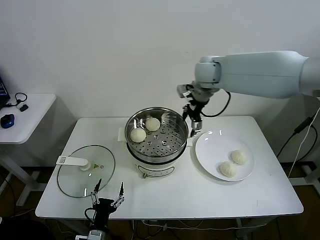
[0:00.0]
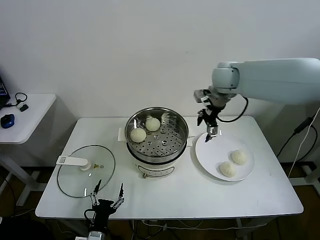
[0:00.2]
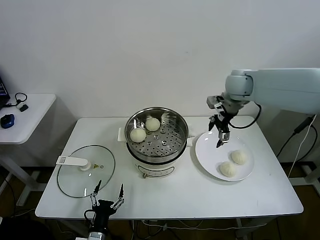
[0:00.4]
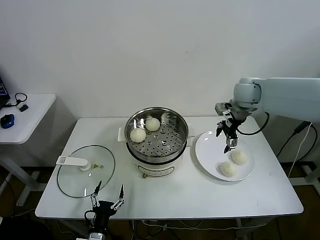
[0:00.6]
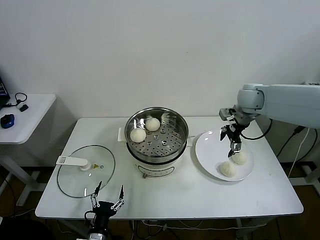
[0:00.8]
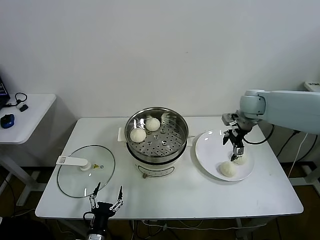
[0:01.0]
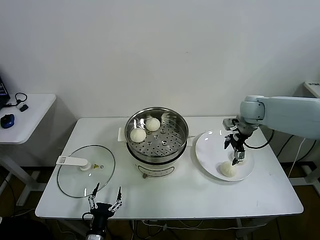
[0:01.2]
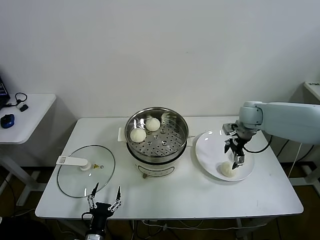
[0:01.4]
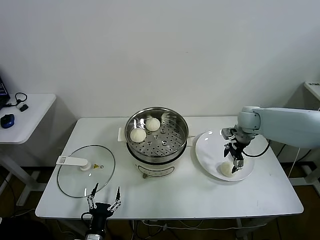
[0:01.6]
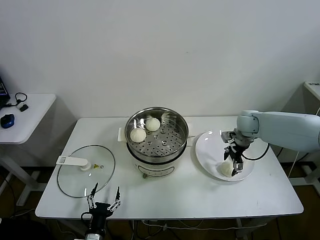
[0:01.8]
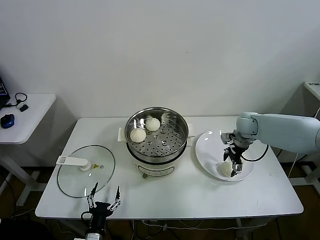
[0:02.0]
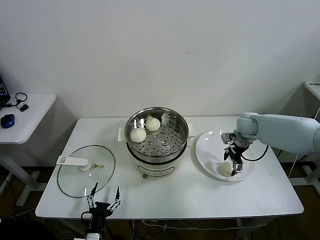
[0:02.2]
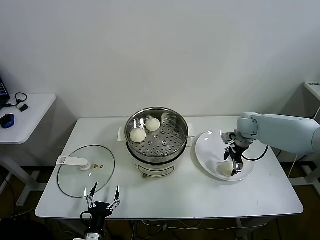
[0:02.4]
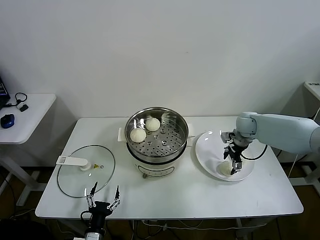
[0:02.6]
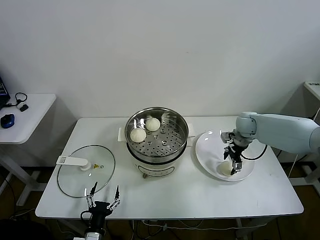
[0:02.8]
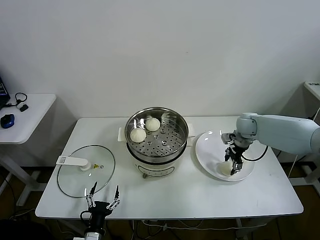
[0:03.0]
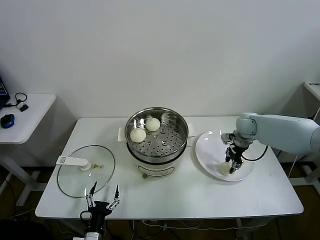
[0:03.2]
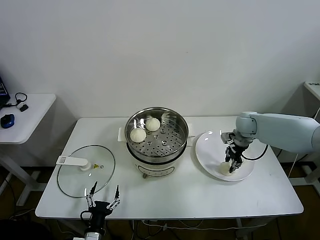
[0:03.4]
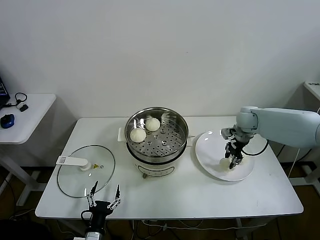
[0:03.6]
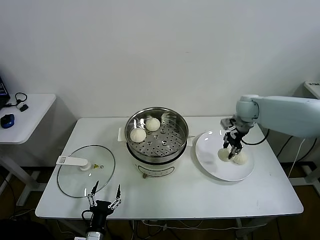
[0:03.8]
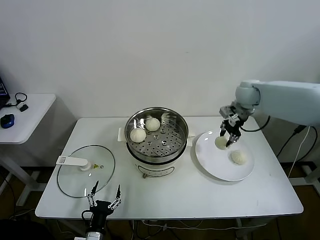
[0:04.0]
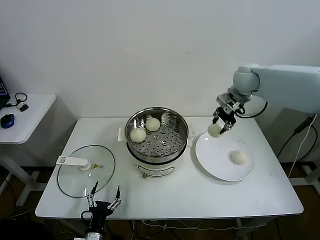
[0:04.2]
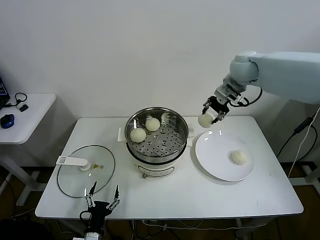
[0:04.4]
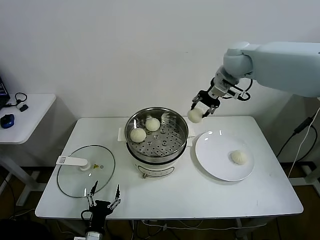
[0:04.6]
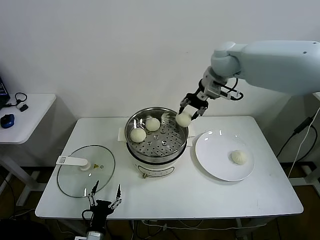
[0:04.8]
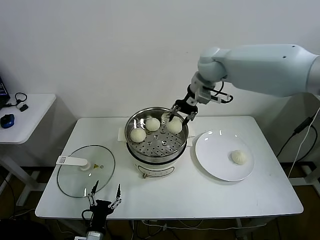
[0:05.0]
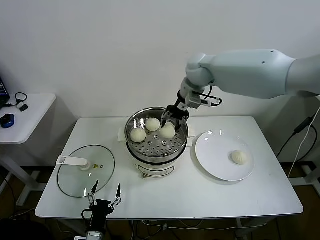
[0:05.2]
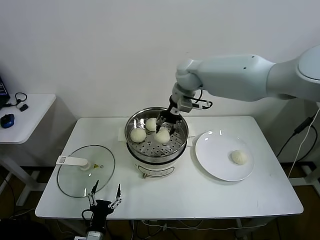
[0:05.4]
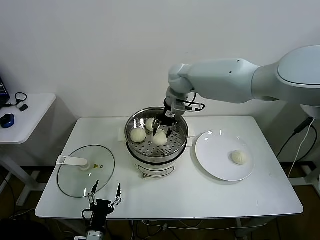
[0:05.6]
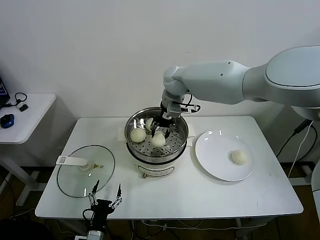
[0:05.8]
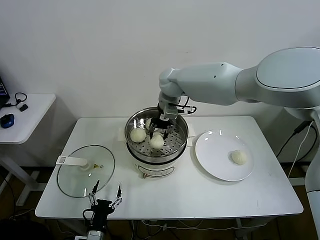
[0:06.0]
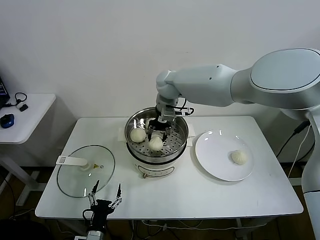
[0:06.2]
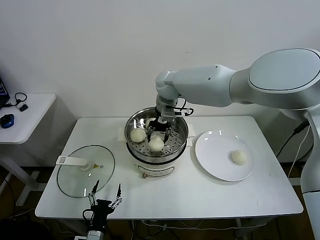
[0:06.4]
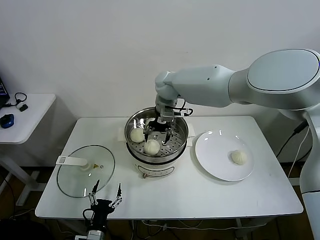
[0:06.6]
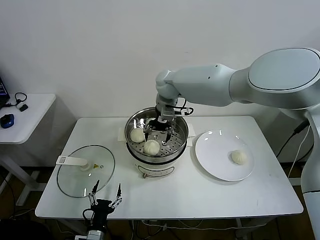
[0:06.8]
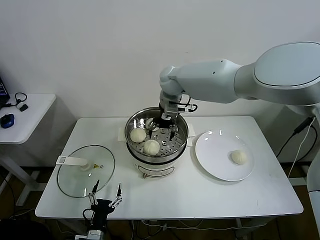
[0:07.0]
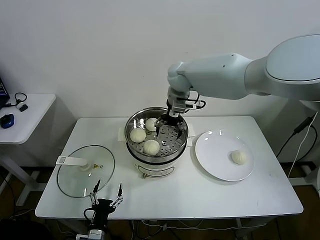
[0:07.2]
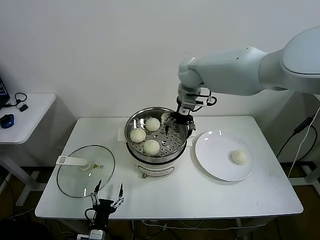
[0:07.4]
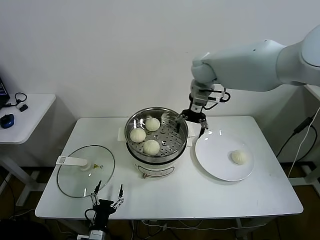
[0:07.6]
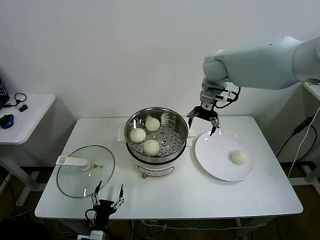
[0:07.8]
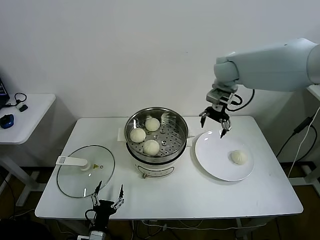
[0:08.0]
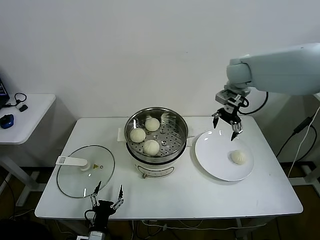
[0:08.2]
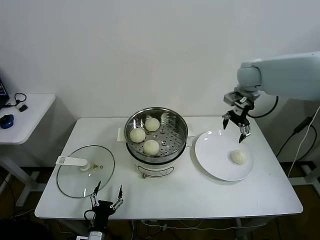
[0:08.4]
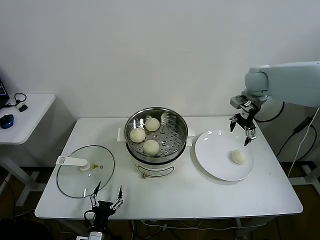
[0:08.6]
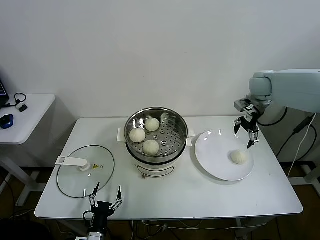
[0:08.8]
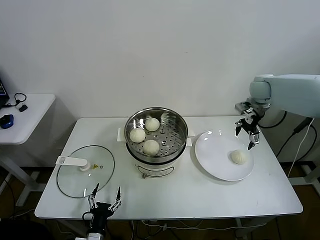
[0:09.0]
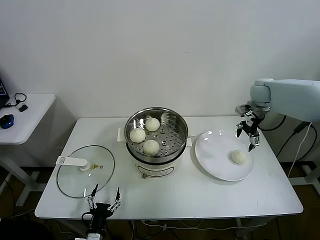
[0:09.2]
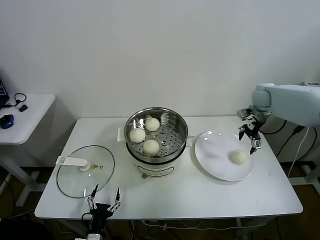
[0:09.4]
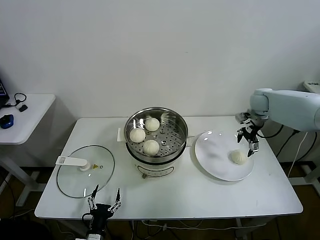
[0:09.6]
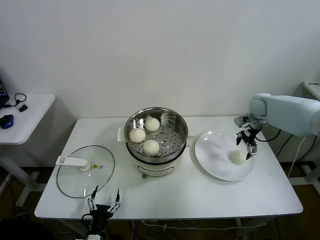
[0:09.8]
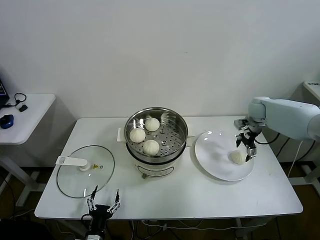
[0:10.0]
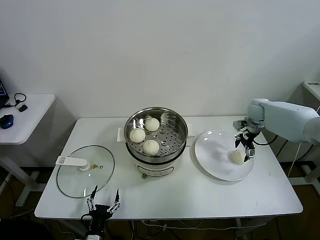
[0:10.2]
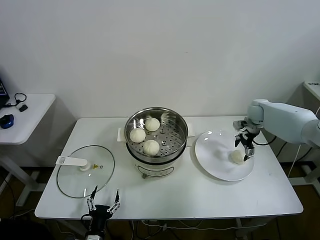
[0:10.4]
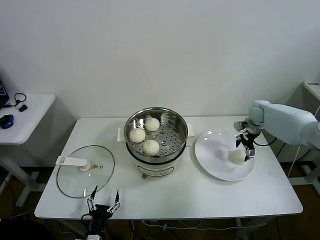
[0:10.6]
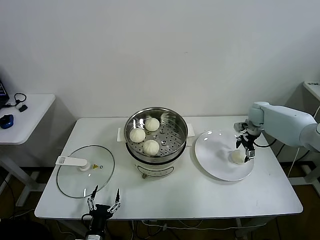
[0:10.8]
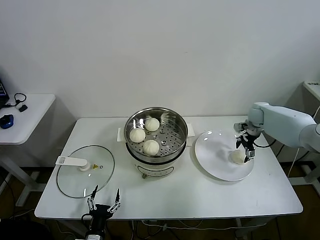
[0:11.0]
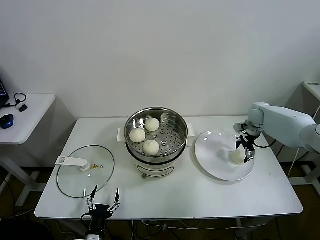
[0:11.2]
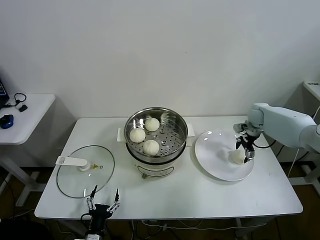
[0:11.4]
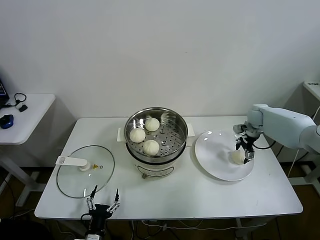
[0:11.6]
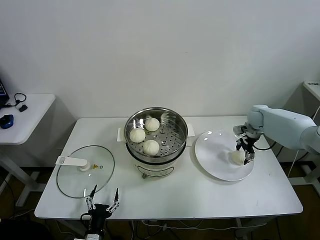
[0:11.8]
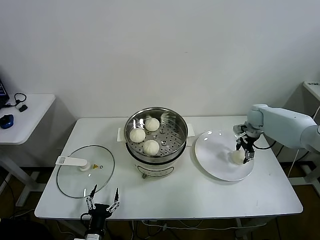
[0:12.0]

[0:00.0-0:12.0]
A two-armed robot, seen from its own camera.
Task of the whole recording: take steamed baozi put them in steamer.
Step, 0:00.0 to 0:03.2: Grasp the baozi in the plate with right gripper.
Step, 0:03.4 to 0:06.6: Place the baozi on the steamer with right gripper.
0:00.0 to 0:01.6: The right gripper shifts about 25 cm downward and to the right.
0:01.6 to 0:03.0: The right gripper closes up.
0:03.0 to 0:04.4: The right gripper travels upward by approximately 25 cm, and closes its fingers.
0:04.4 to 0:06.0: The right gripper goes some 20 cm to the left.
0:06.0 to 0:07.6: The right gripper is displaced to the right and upward by some 10 cm, and opens its fingers.
0:07.6 to 0:09.0: The right gripper heads to the right, covering some 20 cm.
0:09.0 to 0:10.4: The right gripper goes about 10 cm downward.
0:10.4 to 0:12.0: The grippers stay close to where they were, moving slightly.

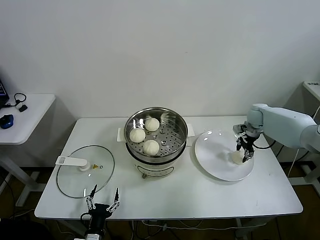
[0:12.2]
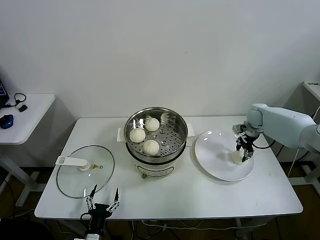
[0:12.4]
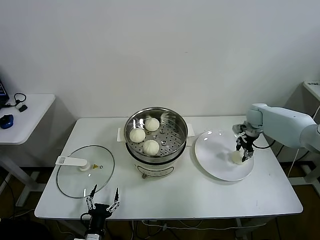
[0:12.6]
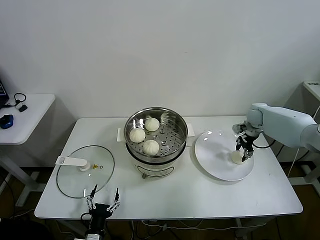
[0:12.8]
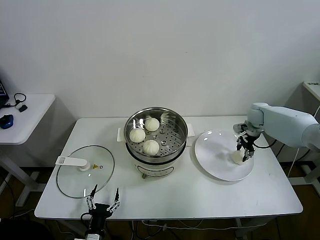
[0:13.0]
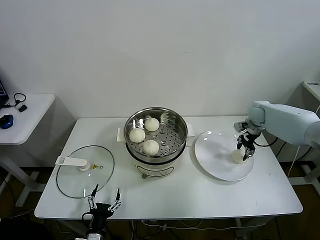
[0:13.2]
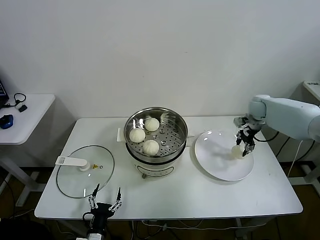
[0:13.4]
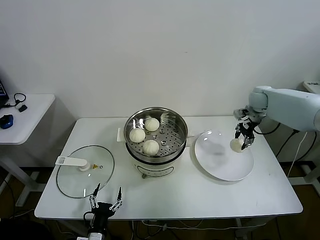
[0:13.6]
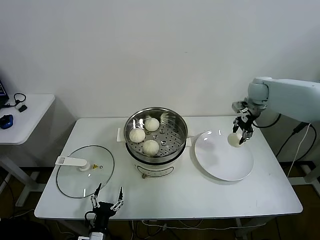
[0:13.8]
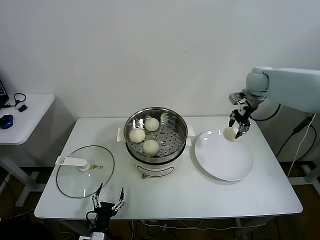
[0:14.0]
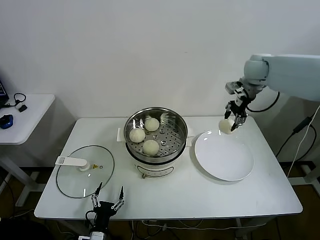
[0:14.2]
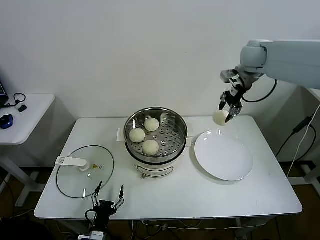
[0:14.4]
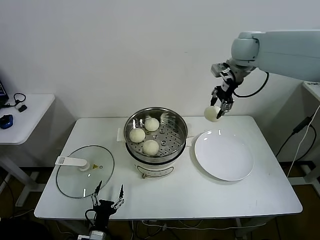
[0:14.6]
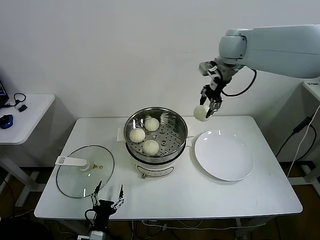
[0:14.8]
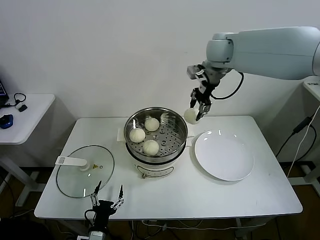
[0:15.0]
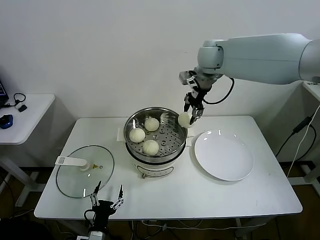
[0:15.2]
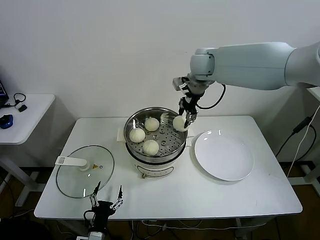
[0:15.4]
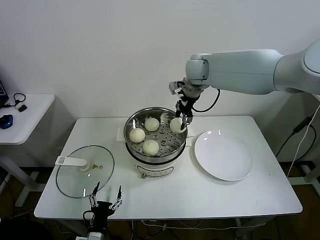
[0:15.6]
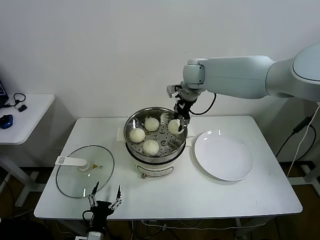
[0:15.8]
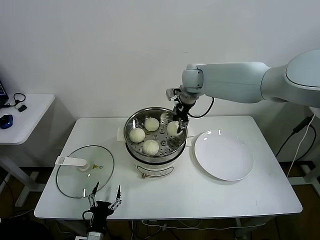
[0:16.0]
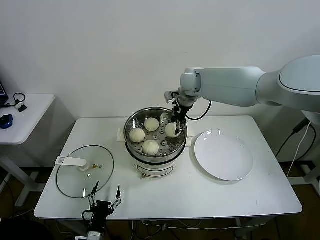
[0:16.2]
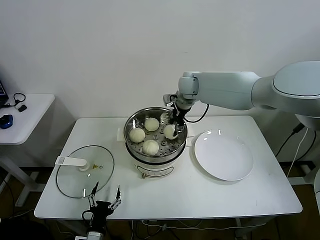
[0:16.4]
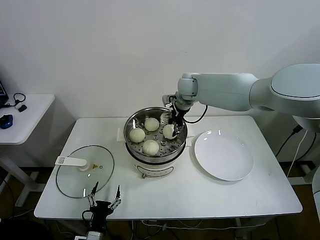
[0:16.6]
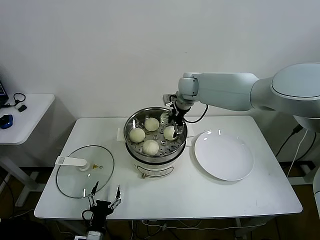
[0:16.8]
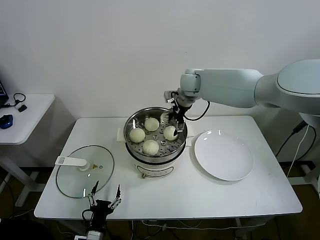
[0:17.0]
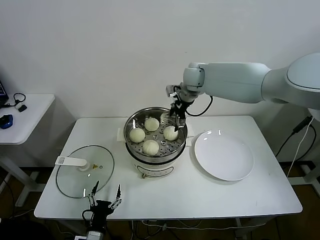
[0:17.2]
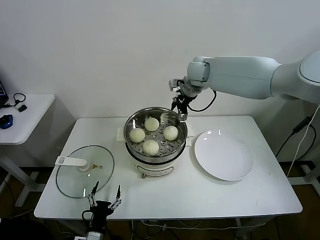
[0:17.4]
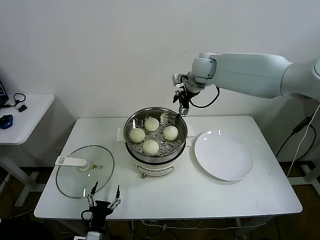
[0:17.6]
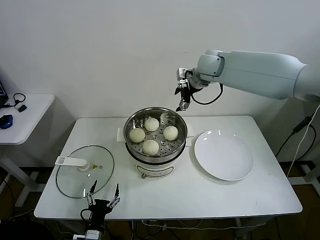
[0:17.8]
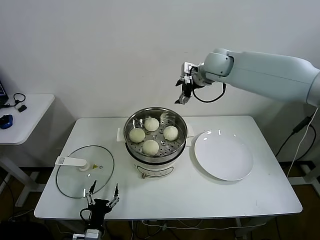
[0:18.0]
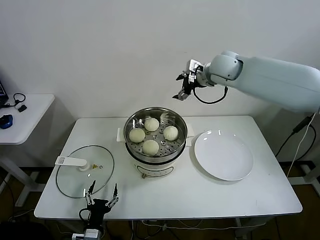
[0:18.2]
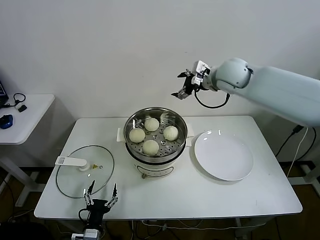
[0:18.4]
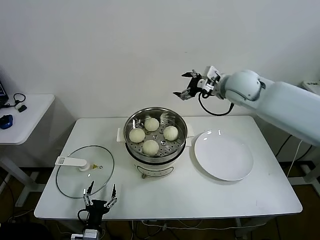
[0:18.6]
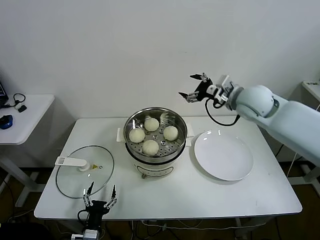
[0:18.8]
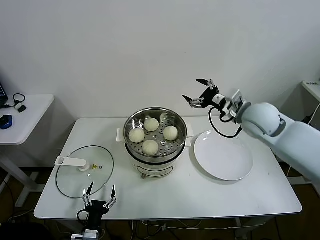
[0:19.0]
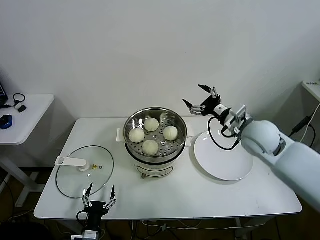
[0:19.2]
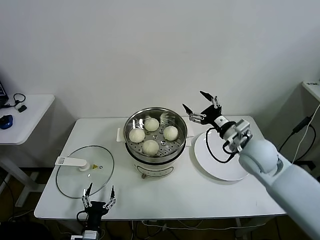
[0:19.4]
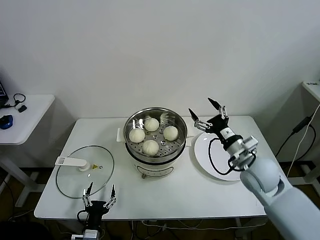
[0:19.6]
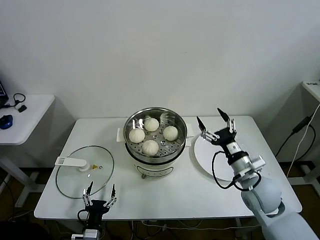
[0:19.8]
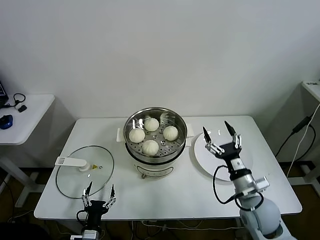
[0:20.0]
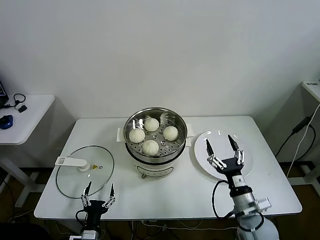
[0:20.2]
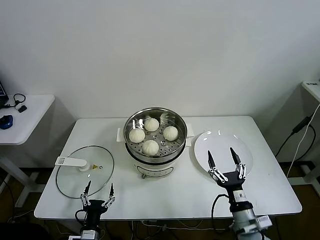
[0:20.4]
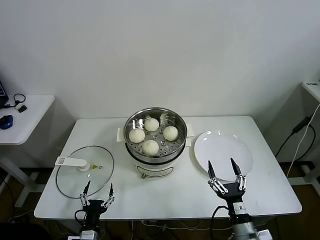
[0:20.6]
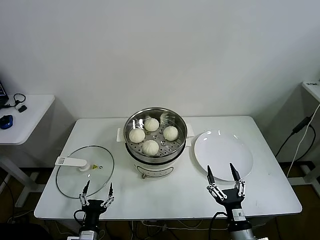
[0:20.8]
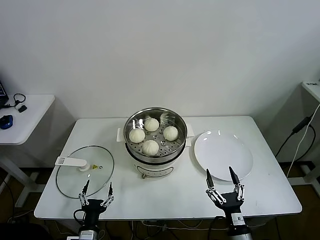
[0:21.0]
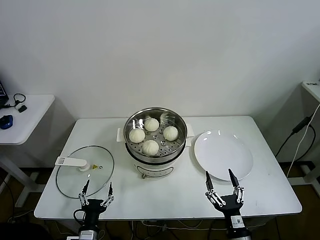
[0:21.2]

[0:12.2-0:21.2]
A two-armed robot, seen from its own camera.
Task of the whole recording: take steamed baozi put them in steamer.
Step, 0:12.6 to 0:16.8: Place the baozi on the steamer with right gripper.
0:12.2 to 0:13.8: The right gripper travels upward by some 10 cm.
0:13.8 to 0:15.2: The right gripper travels to the left and upward by some 25 cm.
0:15.2 to 0:16.6: The right gripper goes roughly 15 cm downward and to the left.
0:16.6 to 0:18.2: The right gripper is displaced upward and to the right by approximately 15 cm, and opens its fingers.
0:18.2 to 0:19.8: The right gripper goes approximately 35 cm backward and downward.
0:19.8 to 0:21.2: The right gripper moves backward and downward, approximately 25 cm.
